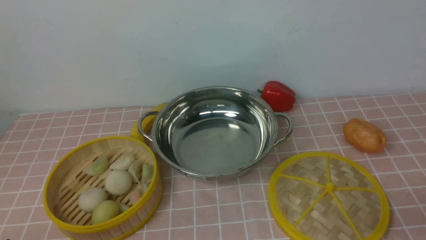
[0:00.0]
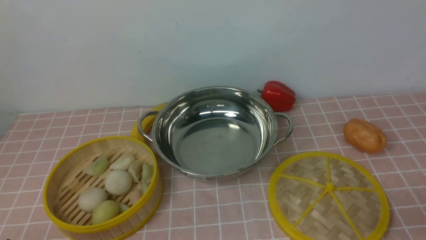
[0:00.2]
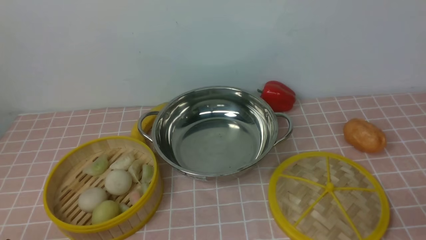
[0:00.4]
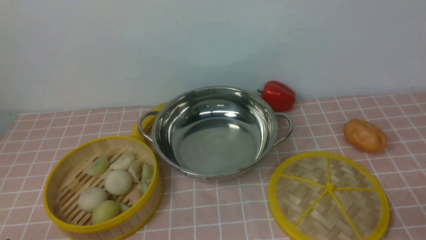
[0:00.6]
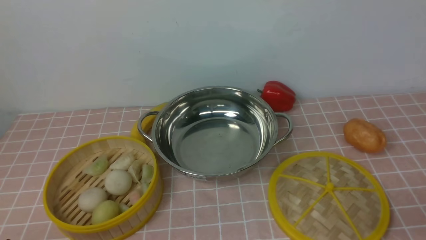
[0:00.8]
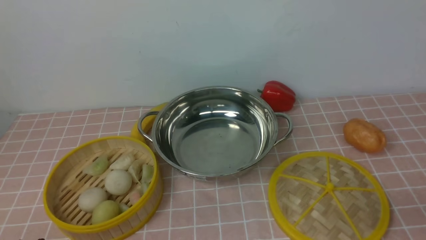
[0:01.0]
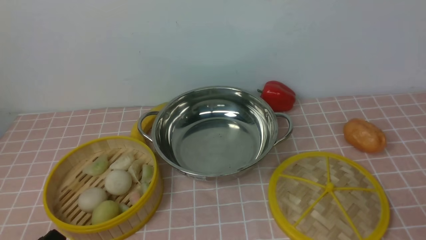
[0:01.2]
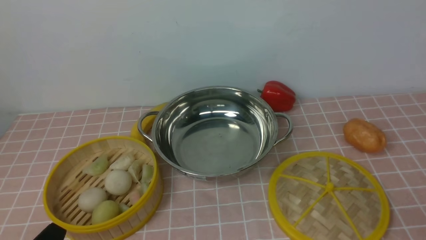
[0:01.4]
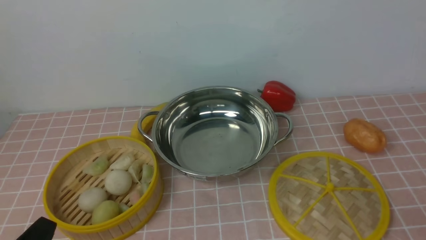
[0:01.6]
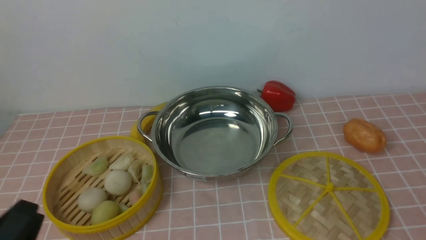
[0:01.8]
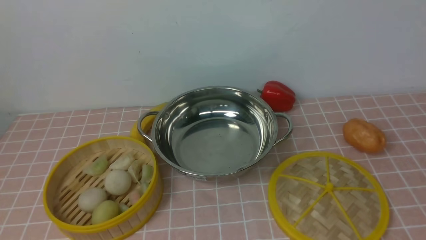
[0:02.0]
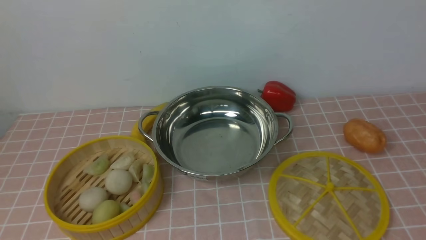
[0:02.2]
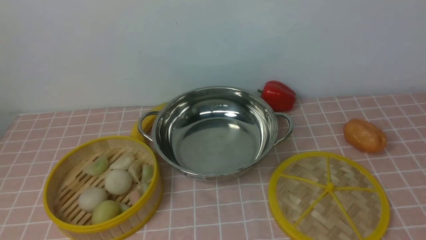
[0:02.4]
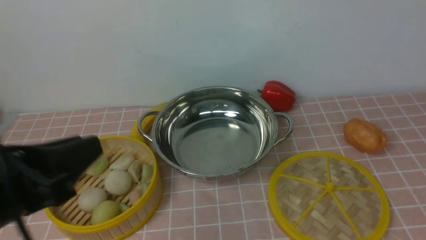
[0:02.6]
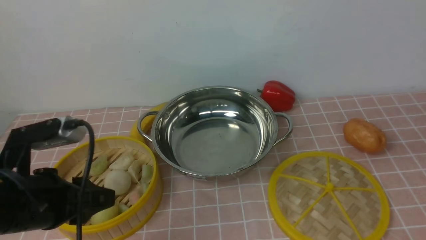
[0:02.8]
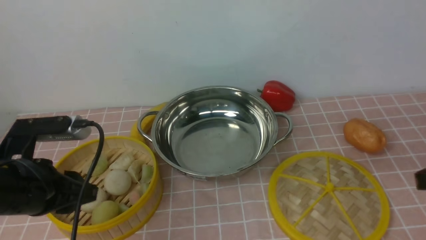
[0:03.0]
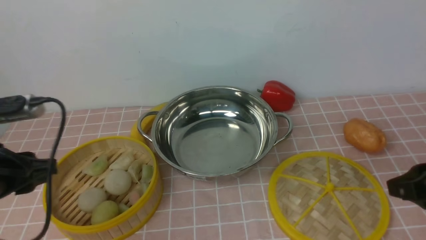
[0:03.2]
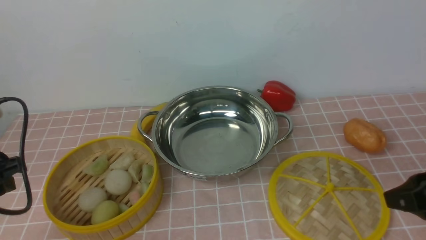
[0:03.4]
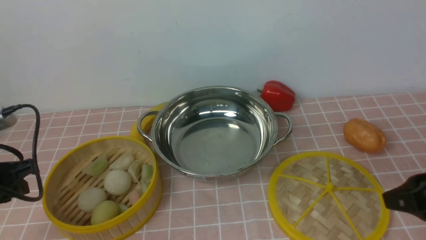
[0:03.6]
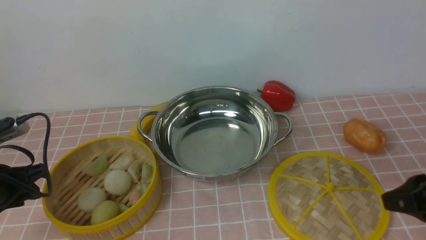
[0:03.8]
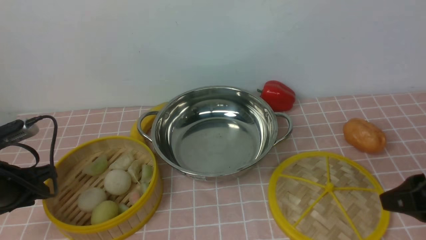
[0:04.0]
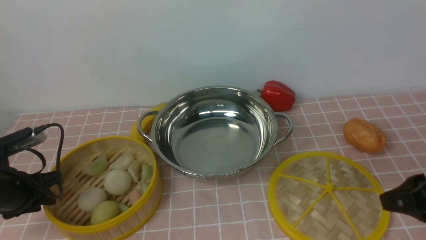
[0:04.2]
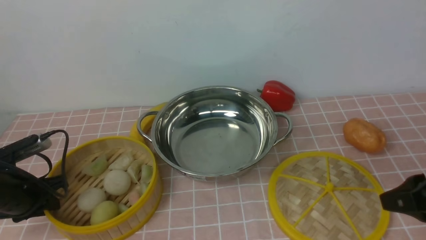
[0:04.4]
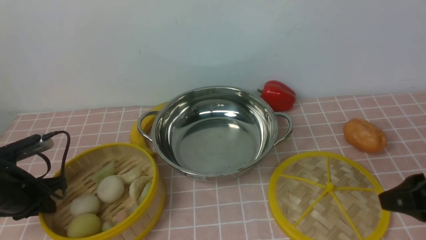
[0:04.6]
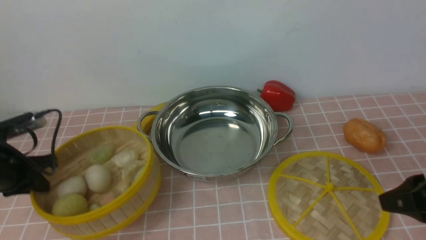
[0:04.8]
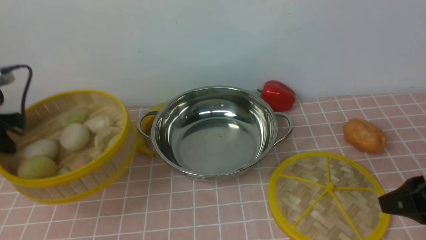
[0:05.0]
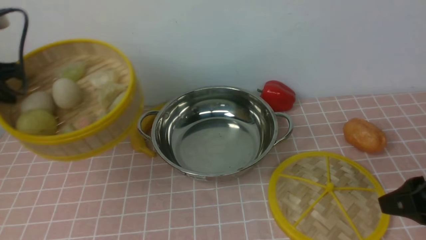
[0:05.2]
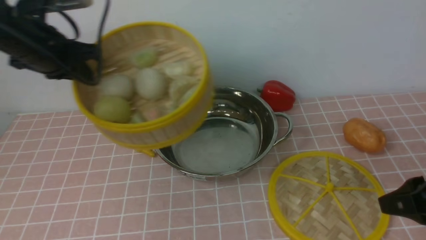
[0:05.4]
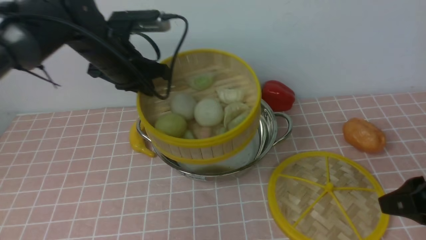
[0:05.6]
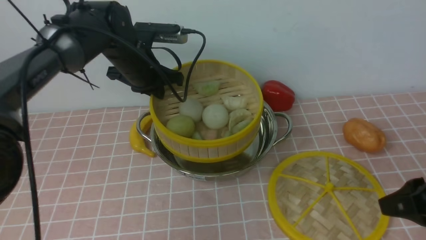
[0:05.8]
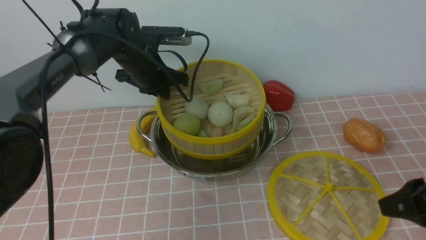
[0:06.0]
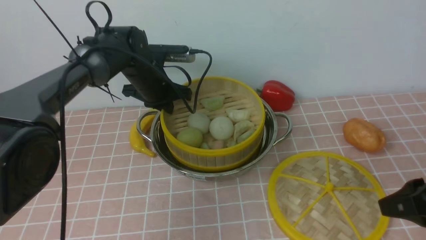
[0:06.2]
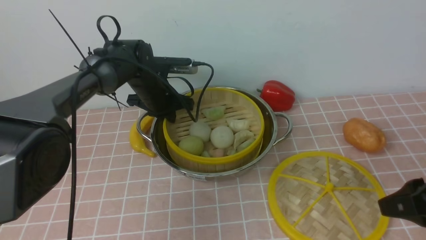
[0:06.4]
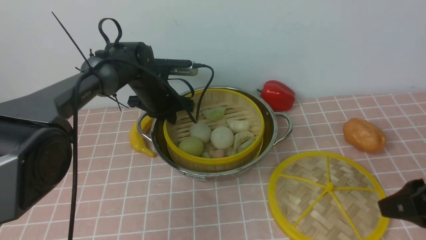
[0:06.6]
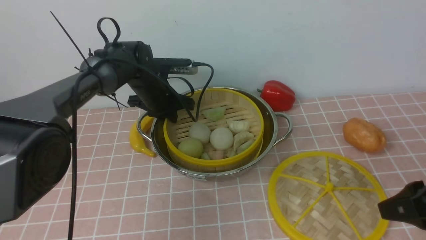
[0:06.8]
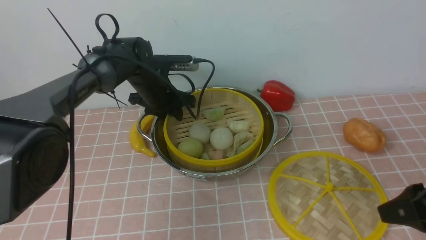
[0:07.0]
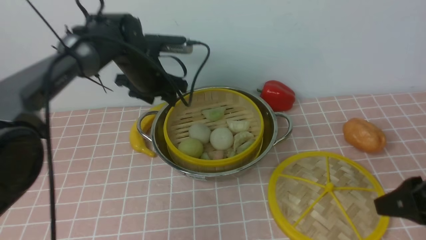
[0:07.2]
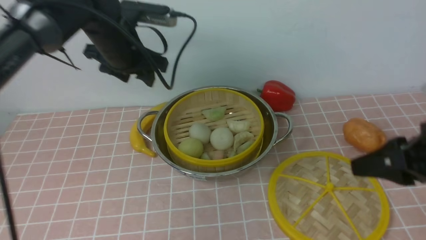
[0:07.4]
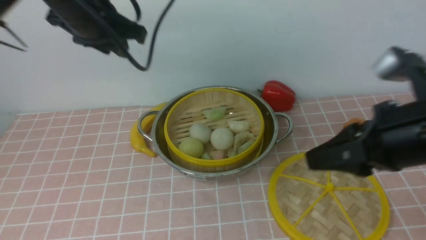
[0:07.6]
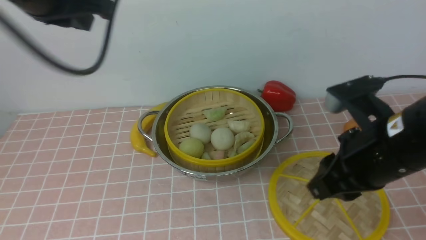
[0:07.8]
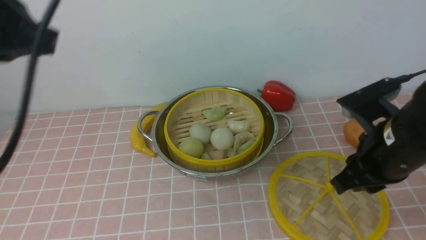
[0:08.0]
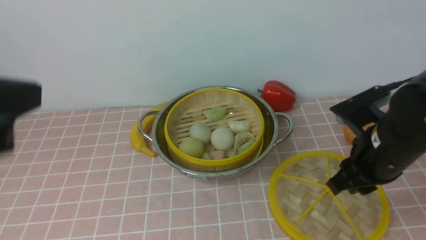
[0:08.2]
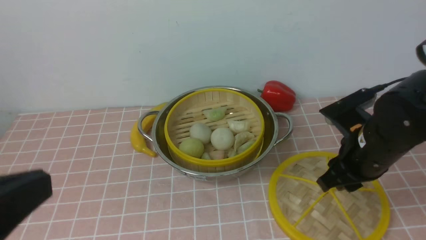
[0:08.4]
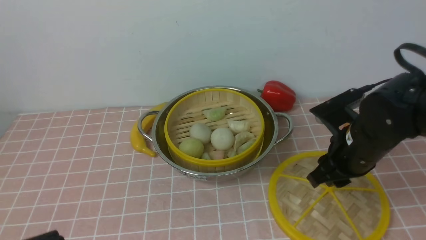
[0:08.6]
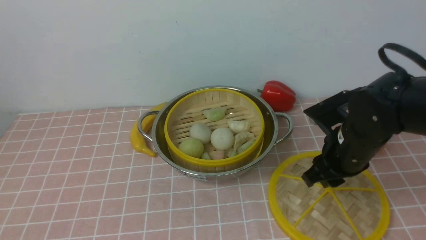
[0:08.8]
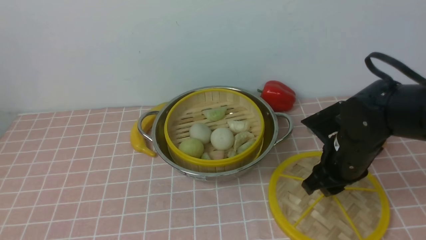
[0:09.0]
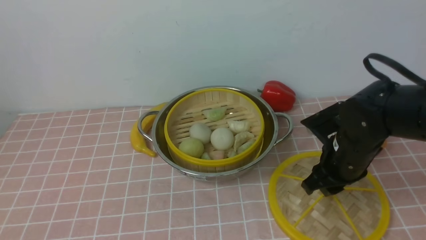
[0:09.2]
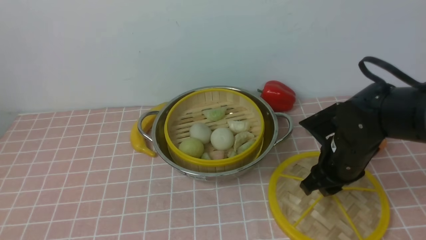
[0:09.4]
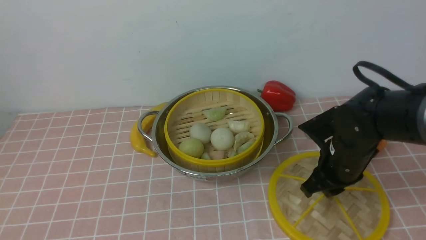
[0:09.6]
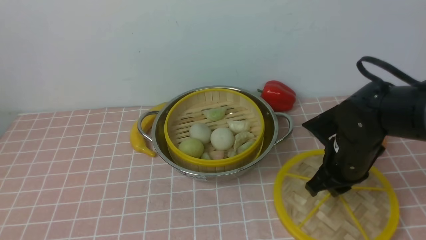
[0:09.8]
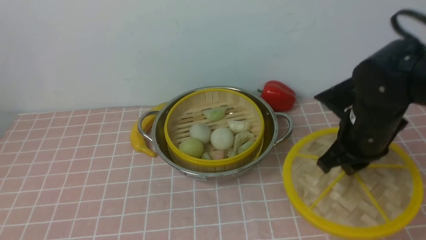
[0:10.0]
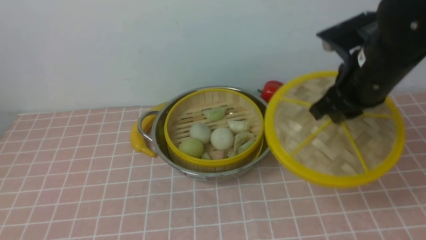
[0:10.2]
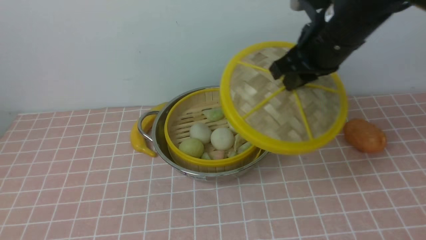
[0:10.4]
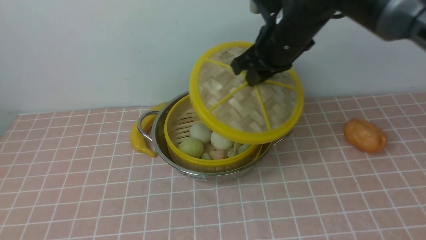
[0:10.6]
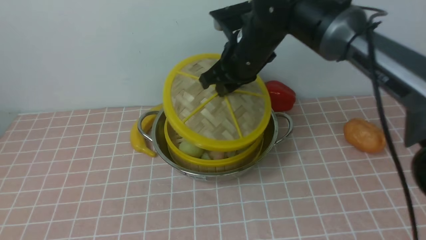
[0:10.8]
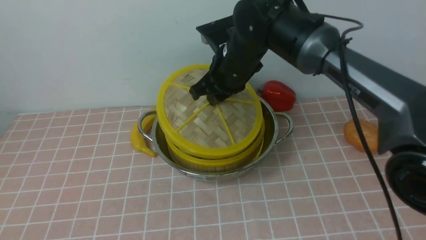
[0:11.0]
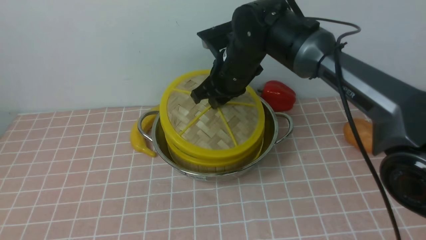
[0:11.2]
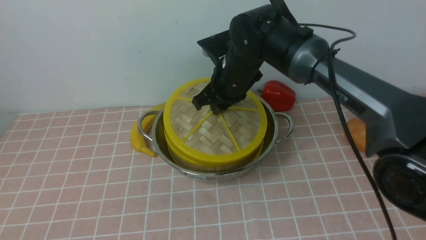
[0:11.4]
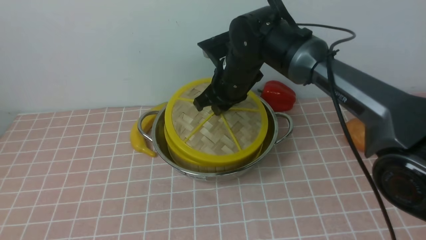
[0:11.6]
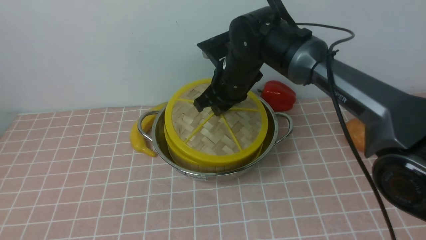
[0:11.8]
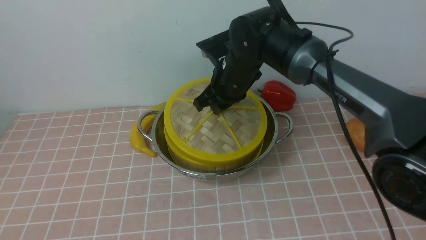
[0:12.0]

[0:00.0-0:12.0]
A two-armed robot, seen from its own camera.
Task of the whole recording: place the steamer in the pot on the pink tablecloth, and put the lid on the steamer.
Step, 0:00.0 to 0:04.6: use the left arm to lift the steamer closest to it.
Step, 0:05.0 to 0:07.0: use the left arm to put the steamer into the iron steamer pot in the middle.
Step, 0:07.2 to 0:09.8: use the right arm to lift the lid of the steamer.
0:01.6 to 0:03.0: The left gripper goes approximately 15 cm forward and upward.
0:03.0 to 0:04.4: The left gripper goes approximately 15 cm downward, to the left and forward.
0:04.4 to 0:06.0: The left gripper moves forward, to the right and upward, about 30 cm, and closes.
0:06.0 to 0:07.6: The right gripper is displaced to the left by roughly 5 cm; the left gripper shifts some 15 cm upward and backward, and opens.
0:07.6 to 0:09.0: The left gripper travels backward by about 40 cm, and closes its fingers; the right gripper travels downward and forward by about 15 cm.
0:09.0 to 0:10.4: The right gripper travels upward by roughly 15 cm, and closes up.
0:10.4 to 0:12.0: The right gripper goes roughly 15 cm to the left, downward and forward.

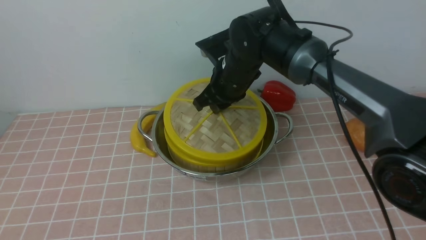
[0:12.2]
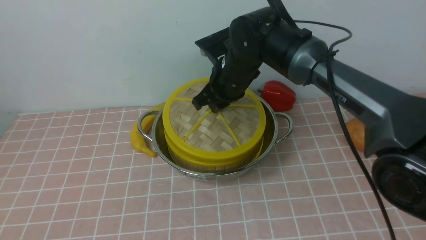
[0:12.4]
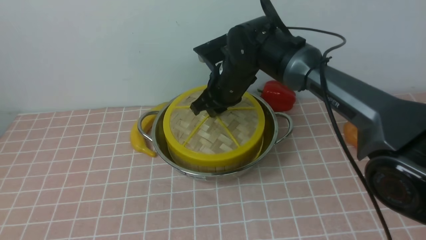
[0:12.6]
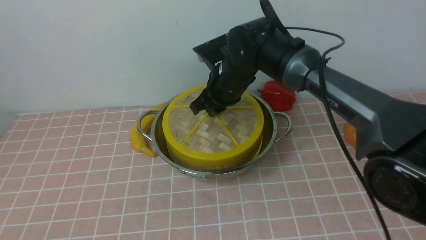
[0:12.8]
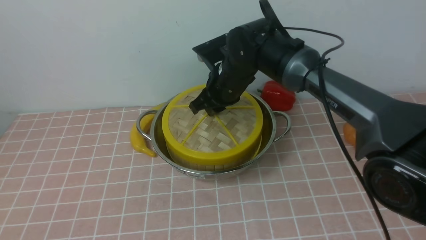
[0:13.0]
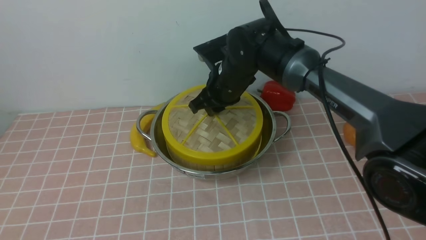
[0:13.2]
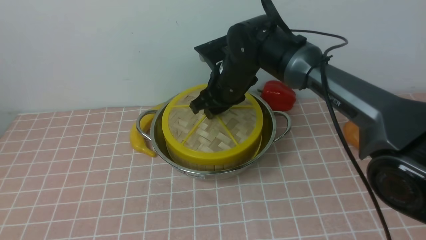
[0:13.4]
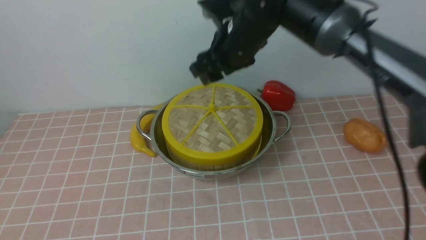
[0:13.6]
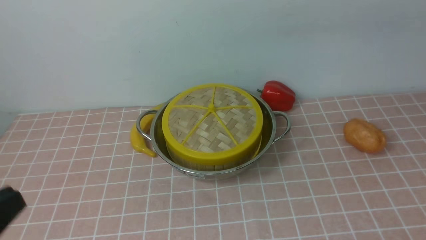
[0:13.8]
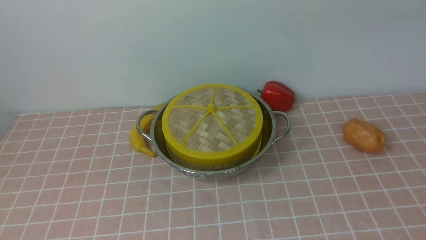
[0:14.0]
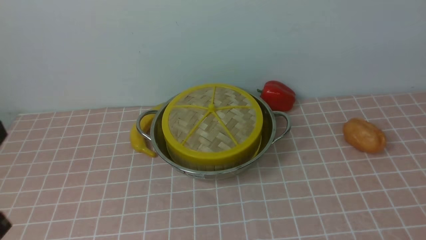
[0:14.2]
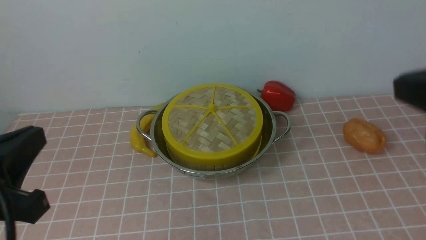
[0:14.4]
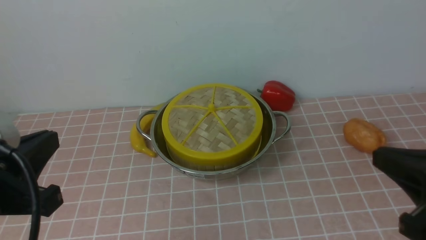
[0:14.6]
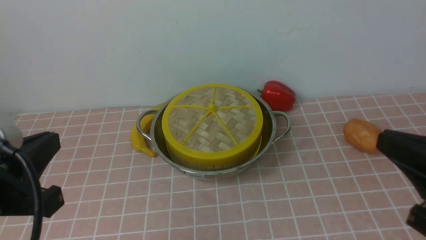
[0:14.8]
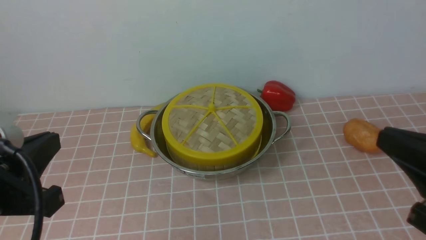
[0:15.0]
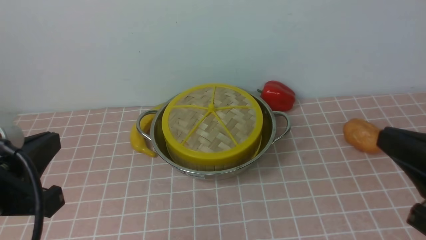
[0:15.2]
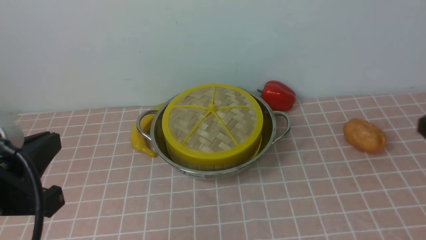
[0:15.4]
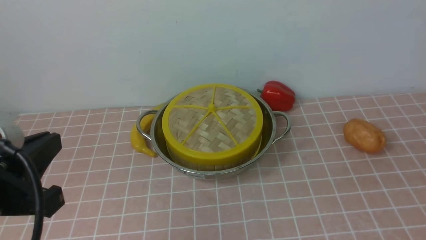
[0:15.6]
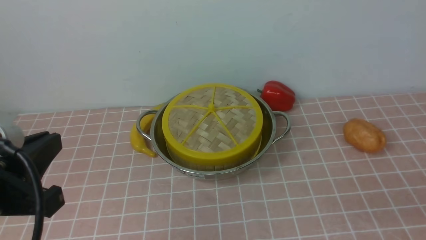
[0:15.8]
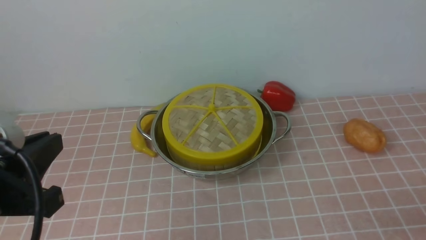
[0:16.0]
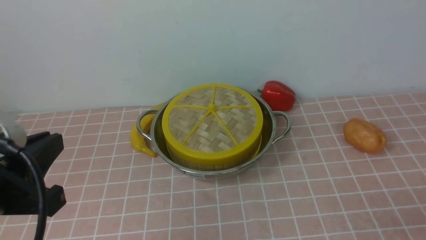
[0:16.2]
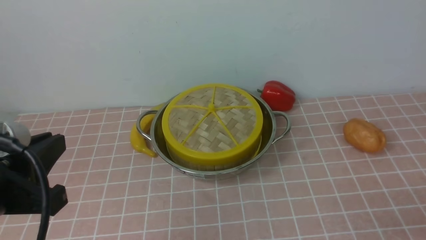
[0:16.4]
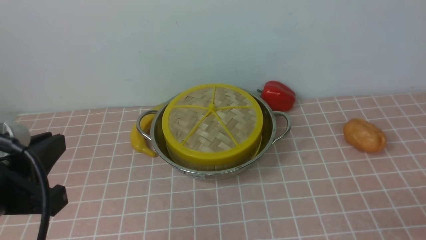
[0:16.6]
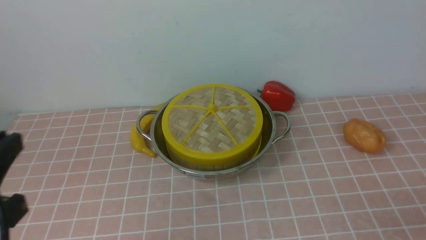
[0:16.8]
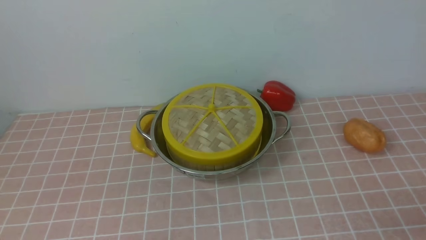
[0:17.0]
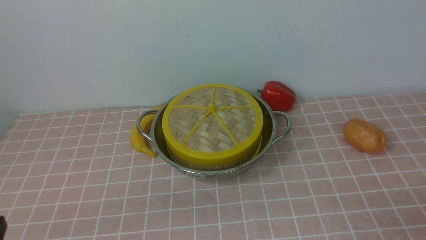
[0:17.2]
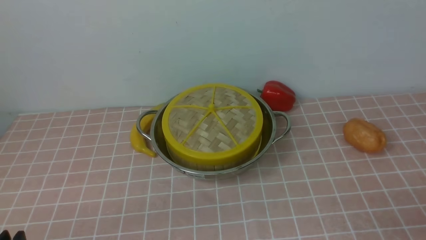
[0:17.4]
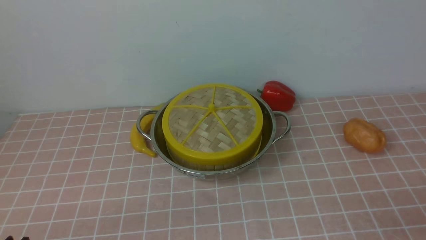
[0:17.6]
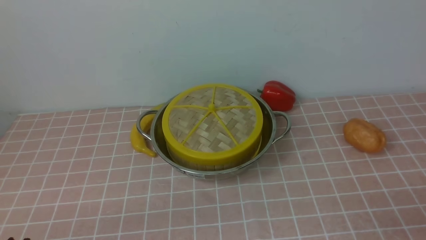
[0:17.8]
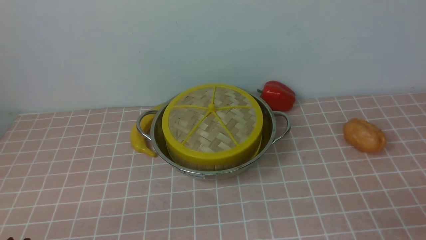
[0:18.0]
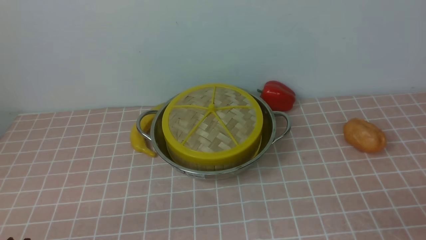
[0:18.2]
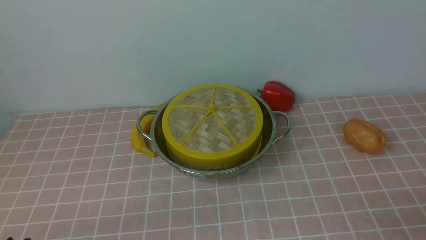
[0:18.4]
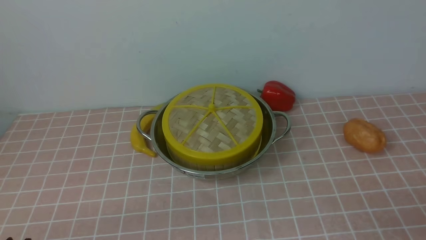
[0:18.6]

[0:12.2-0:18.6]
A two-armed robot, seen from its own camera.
Task of the whole recording: place the steamer in the pot on the pink tablecloth, and put the lid on the steamer.
0:12.2 to 0:13.8: The right gripper heads upward, covering roughly 20 cm, and opens its fingers.
0:13.8 to 0:15.4: The left gripper goes some 10 cm forward.
0:15.4 to 0:17.0: The left gripper changes place by about 5 cm.
